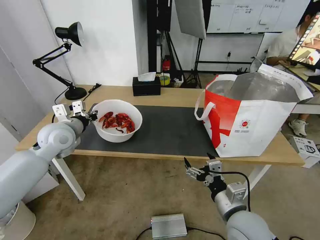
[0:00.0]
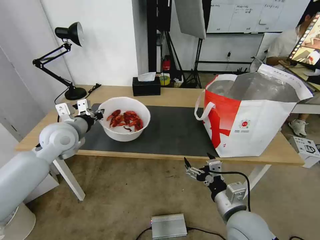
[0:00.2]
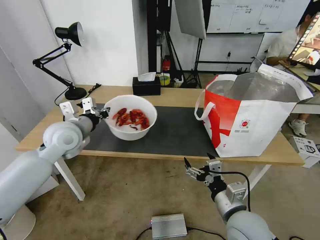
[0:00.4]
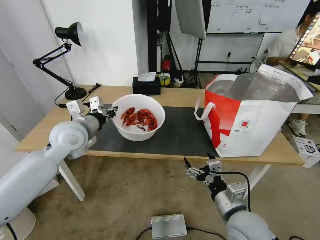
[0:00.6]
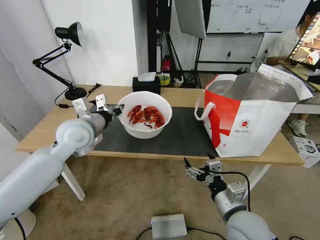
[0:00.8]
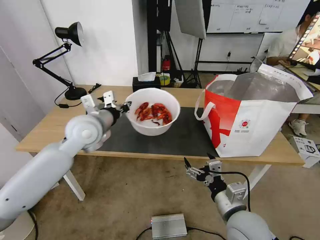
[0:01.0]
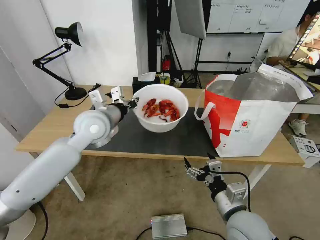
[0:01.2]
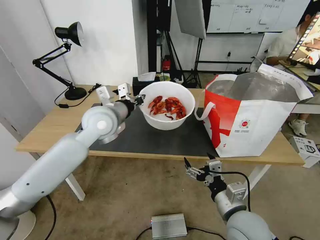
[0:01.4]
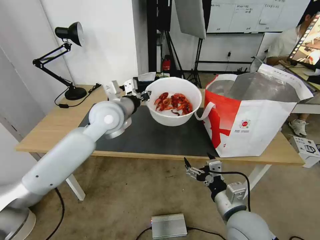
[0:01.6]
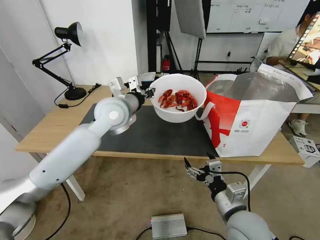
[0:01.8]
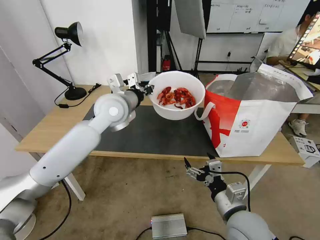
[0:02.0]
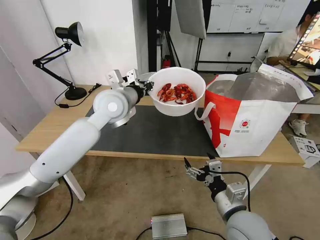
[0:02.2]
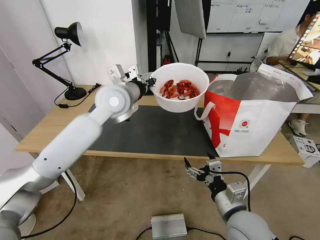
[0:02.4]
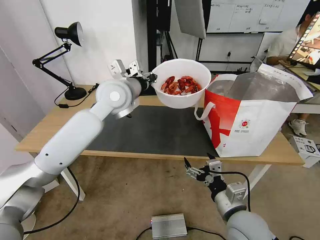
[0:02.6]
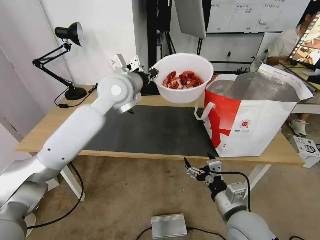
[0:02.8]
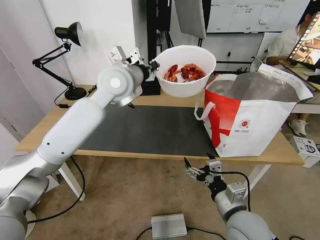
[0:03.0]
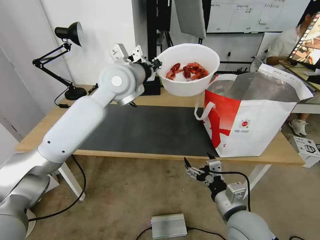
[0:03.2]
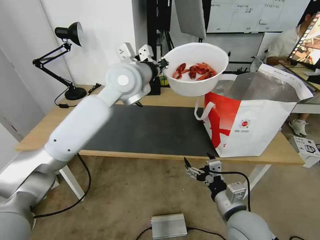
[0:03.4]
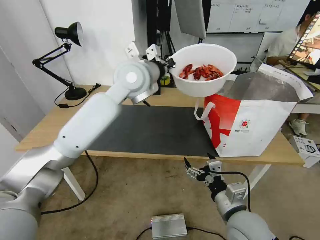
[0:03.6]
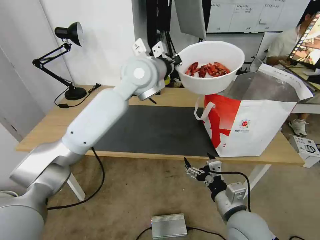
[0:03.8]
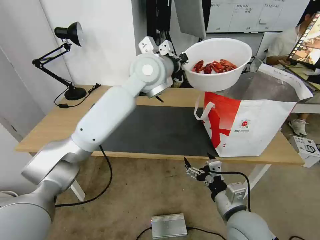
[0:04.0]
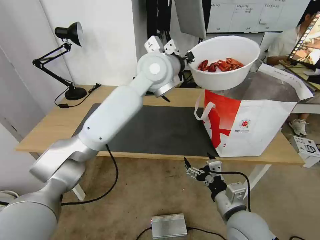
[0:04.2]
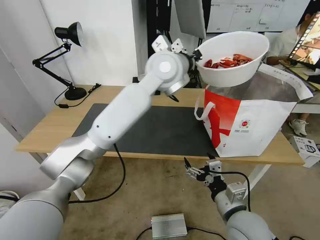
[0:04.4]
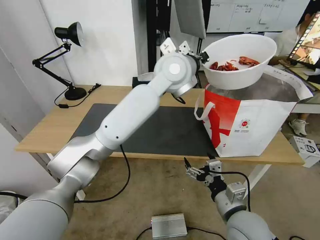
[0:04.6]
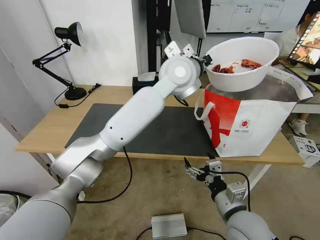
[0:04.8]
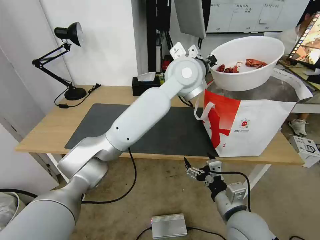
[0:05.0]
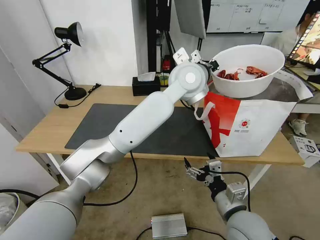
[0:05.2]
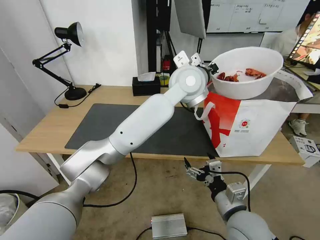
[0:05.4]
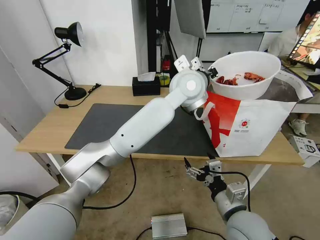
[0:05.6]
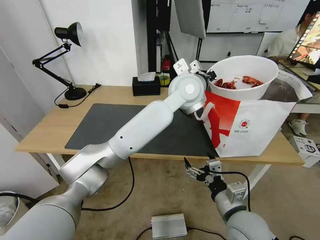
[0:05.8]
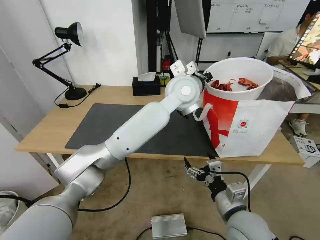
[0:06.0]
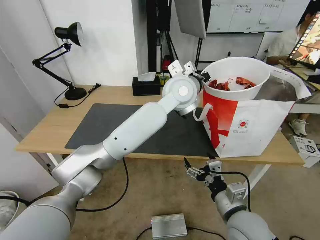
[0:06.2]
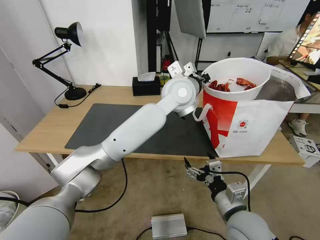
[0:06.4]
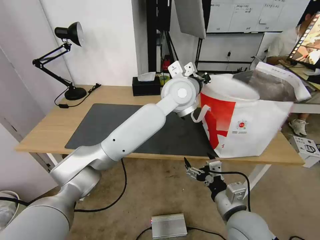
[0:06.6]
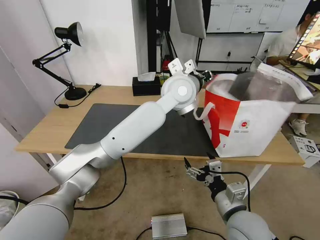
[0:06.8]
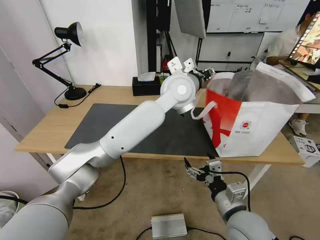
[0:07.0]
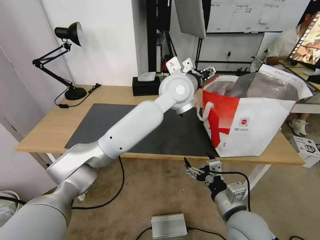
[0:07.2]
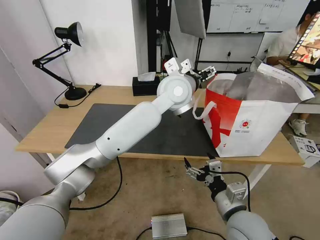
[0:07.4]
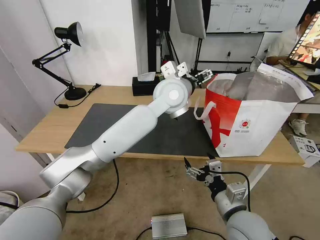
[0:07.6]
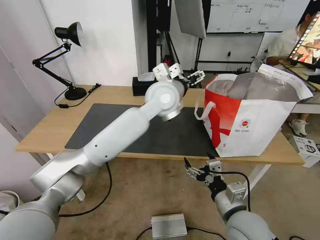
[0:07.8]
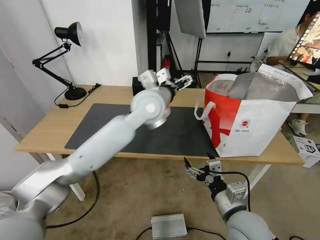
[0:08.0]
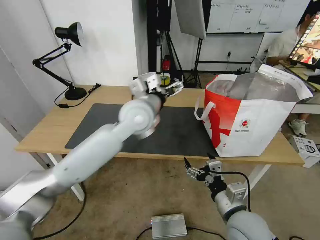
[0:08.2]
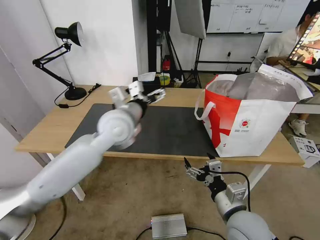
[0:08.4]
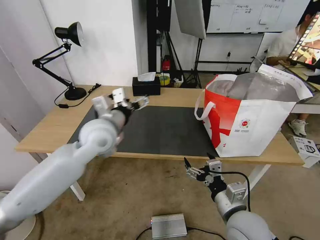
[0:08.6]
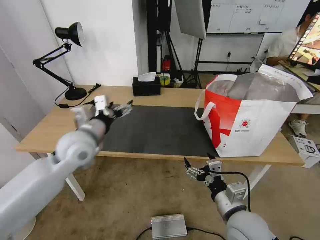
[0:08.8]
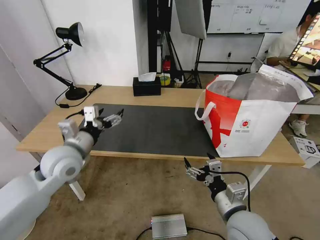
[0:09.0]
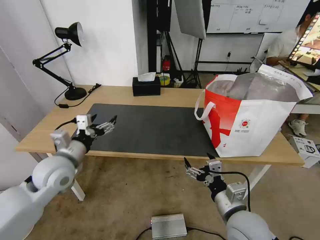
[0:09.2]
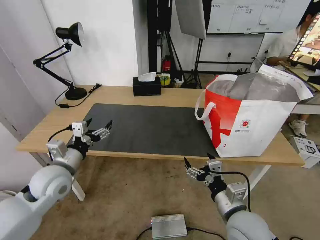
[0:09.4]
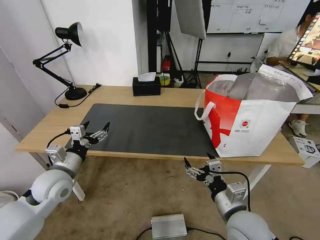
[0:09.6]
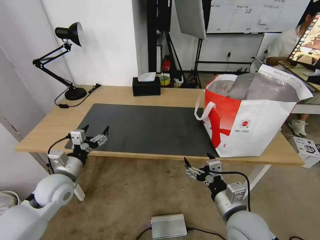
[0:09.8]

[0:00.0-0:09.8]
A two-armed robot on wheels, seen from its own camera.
Task of the whole recording: Pick up the trash from the table and place it into the takeout bag.
0:00.0 to 0:01.4: The left gripper is displaced to the right by approximately 15 cm.
0:01.4 to 0:02.8: The left gripper goes approximately 10 cm upward and to the right.
0:02.8 to 0:04.2: The left gripper heads to the right, covering roughly 10 cm.
0:04.2 to 0:05.6: The left gripper shifts roughly 10 cm to the right.
0:05.6 to 0:07.0: The left gripper opens up.
0:07.0 to 0:08.4: The left gripper heads to the left, backward and downward, covering some 20 cm, and opens up.
0:08.4 to 0:09.8: The left gripper heads to the left, downward and backward, covering roughly 30 cm.

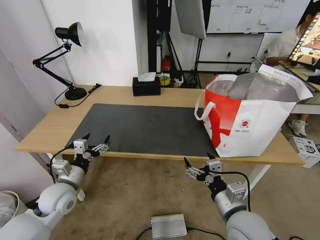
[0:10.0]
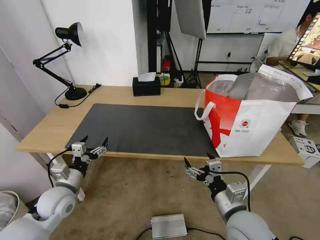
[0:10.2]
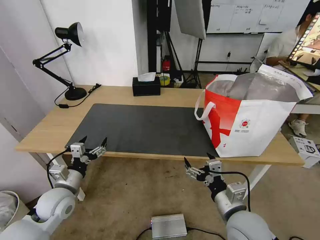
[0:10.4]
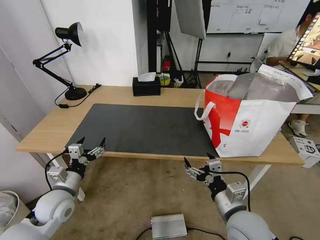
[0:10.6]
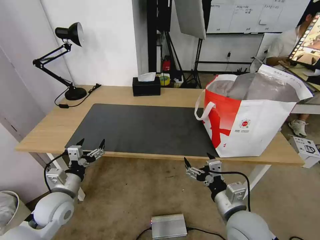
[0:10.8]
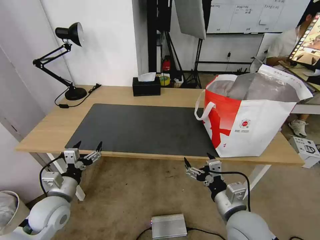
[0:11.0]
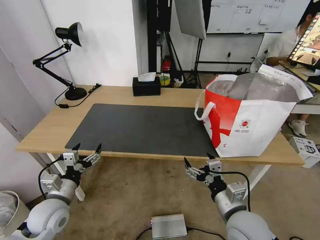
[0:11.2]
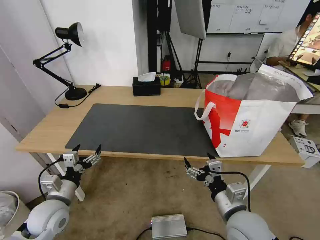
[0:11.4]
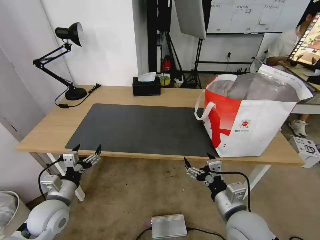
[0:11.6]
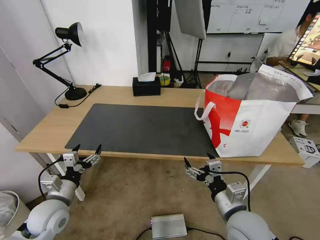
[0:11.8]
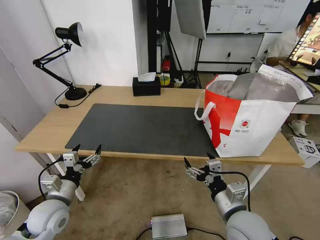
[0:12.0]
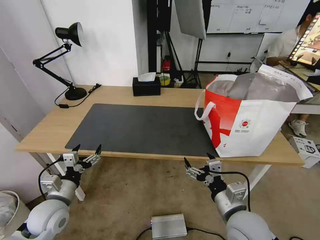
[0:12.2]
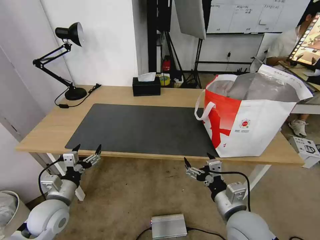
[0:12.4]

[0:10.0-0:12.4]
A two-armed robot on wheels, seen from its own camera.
Task of the whole recording: Pick up the trash from the table and place it into the takeout bag.
0:10.0 to 0:11.2: The grippers make only small movements.
0:11.2 to 0:12.4: Both grippers stay put.

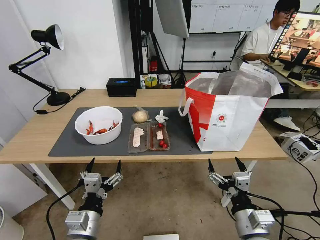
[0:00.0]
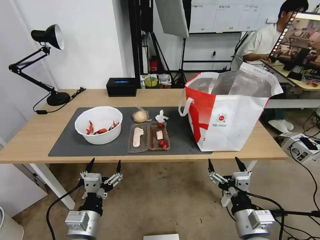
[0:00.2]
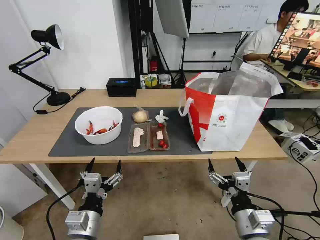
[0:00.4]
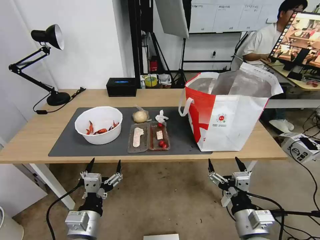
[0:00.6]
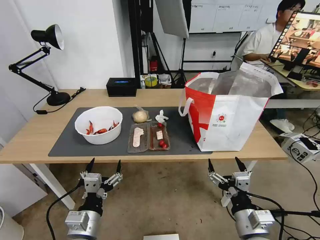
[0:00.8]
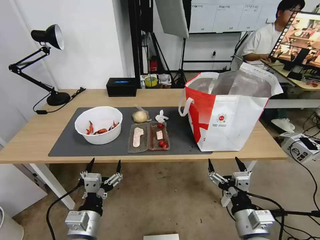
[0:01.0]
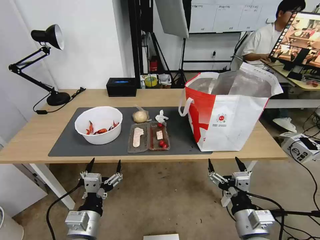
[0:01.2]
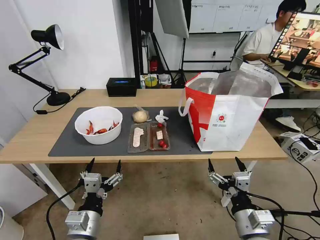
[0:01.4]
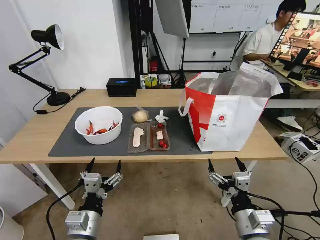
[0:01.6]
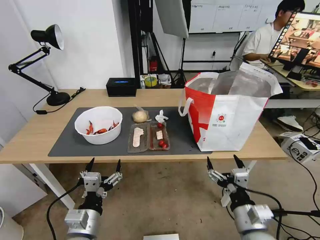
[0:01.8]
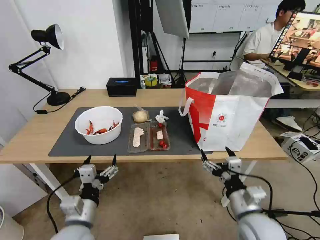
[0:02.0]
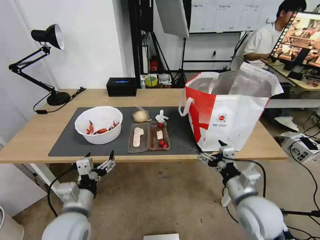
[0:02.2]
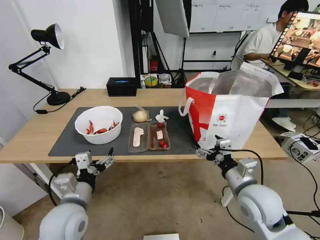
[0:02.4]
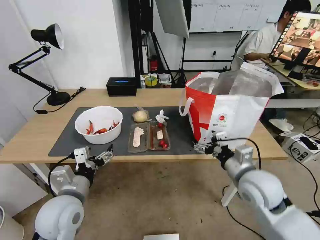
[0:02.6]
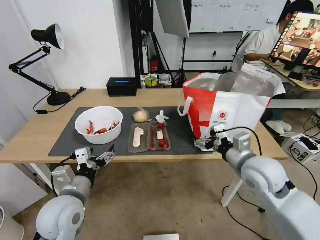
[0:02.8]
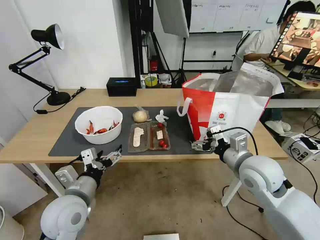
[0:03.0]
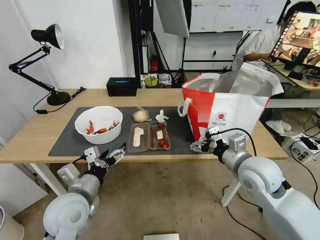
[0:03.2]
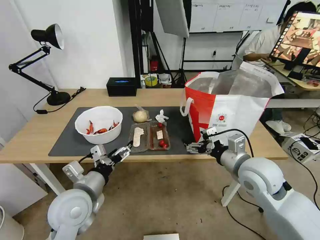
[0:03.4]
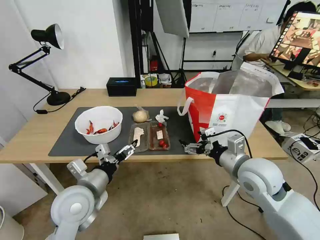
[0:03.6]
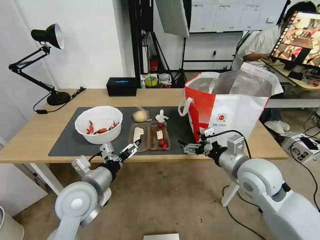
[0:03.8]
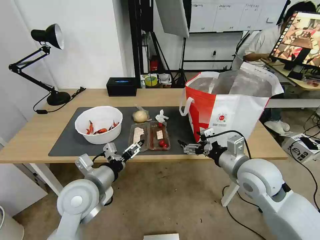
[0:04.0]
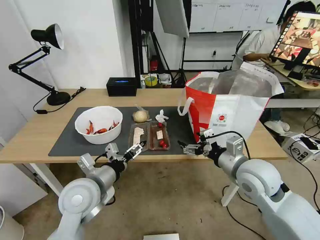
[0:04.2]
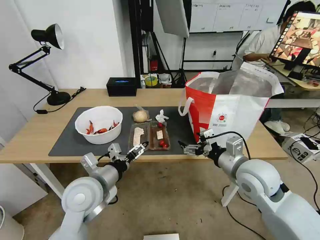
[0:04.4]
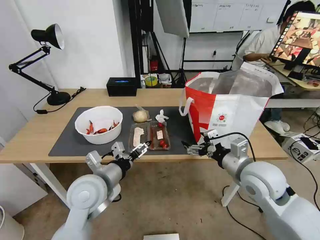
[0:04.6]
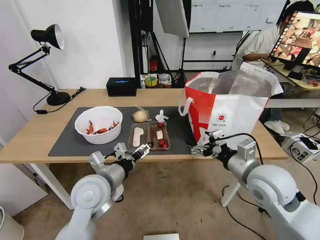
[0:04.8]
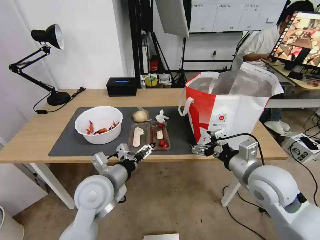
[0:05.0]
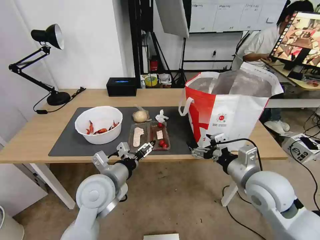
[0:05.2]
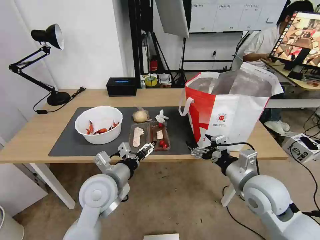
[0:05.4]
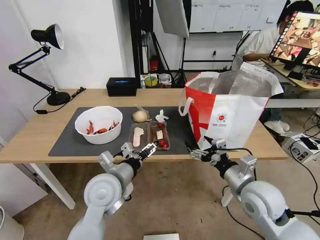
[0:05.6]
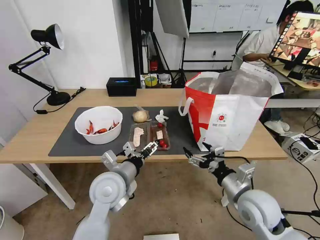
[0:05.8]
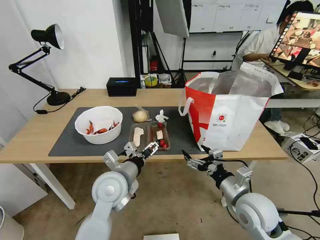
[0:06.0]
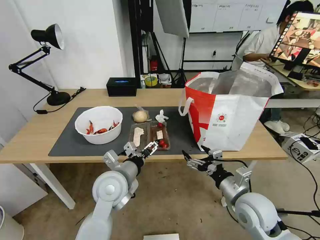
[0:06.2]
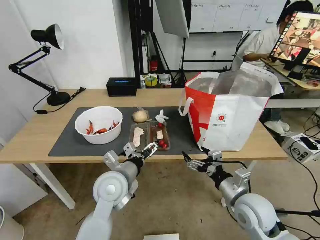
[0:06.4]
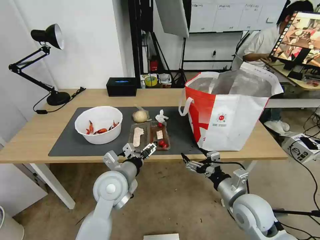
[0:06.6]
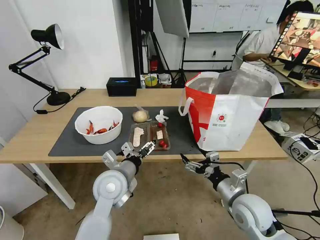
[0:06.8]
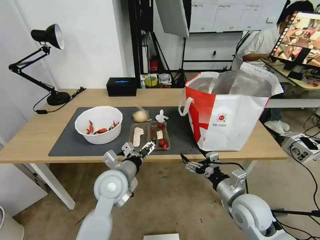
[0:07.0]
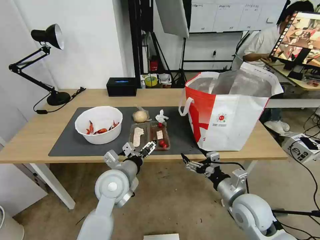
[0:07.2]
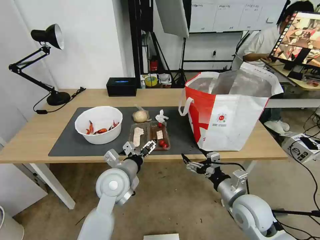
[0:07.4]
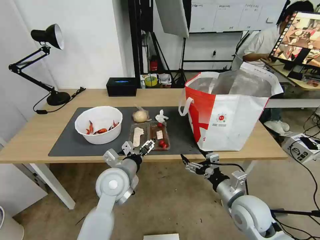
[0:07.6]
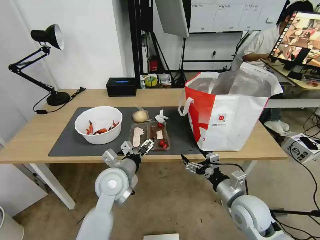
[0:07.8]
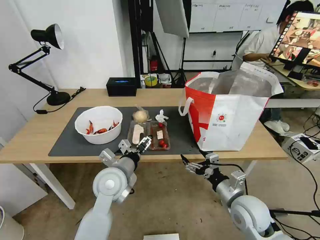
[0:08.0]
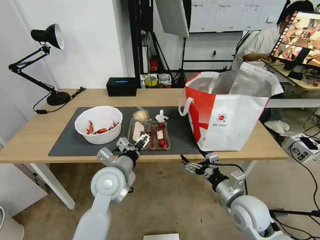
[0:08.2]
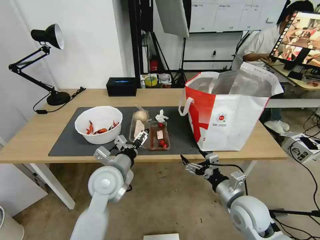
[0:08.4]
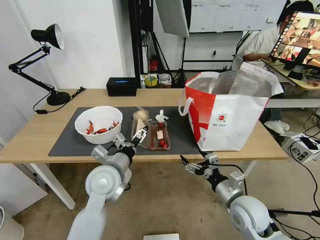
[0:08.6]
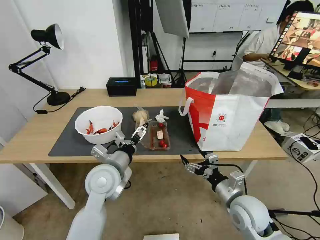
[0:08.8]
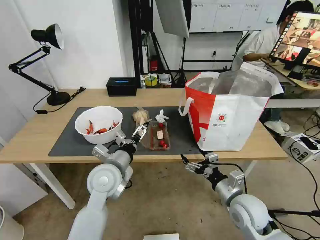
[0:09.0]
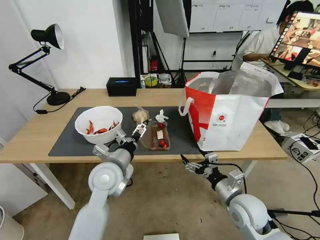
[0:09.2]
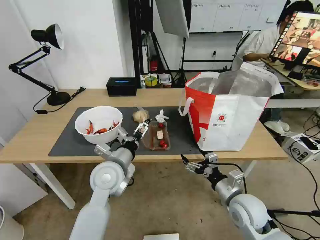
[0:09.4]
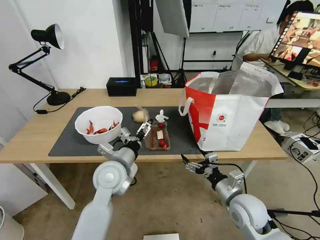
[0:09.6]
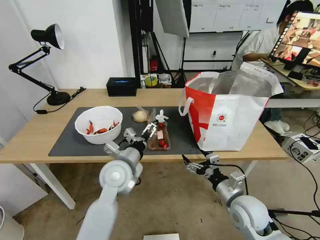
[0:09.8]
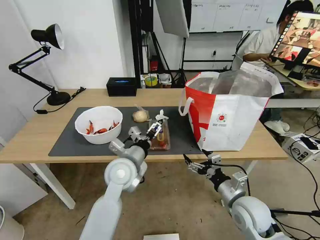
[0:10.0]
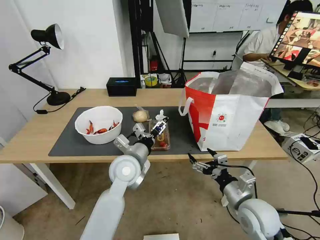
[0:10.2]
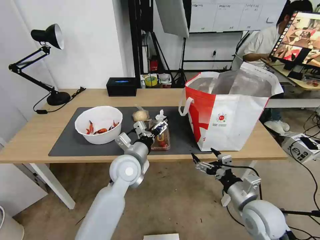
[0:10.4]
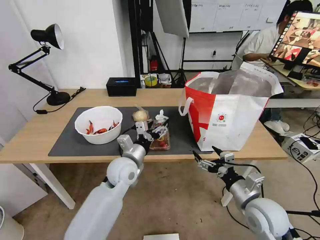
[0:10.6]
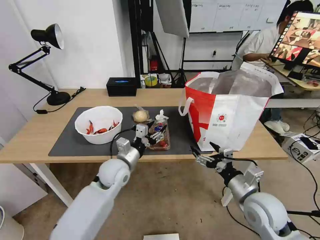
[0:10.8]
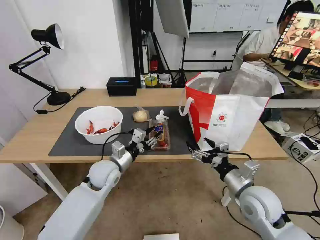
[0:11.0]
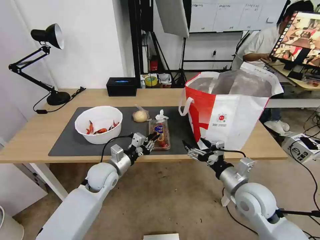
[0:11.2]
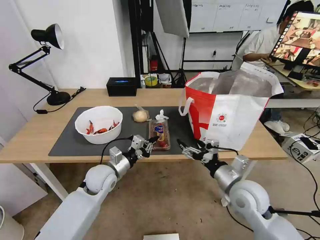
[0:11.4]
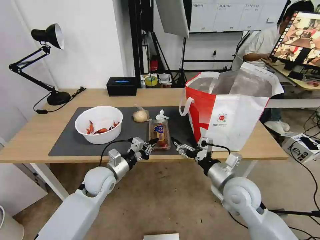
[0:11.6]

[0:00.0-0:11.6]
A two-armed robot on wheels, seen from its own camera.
Task of the whole recording: Pick up the trash from the table and place it into the takeout bag.
0:01.4 to 0:02.8: The right gripper heads forward and upward, covering roughly 20 cm, while the left gripper shifts about 10 cm forward and upward.
0:02.8 to 0:04.4: The left gripper moves about 5 cm.
0:04.4 to 0:05.8: The right gripper travels downward and backward by roughly 10 cm. Meanwhile the left gripper travels to the right by about 5 cm.
0:05.8 to 0:08.8: The grippers stay close to where they were, moving slightly.
0:08.8 to 0:10.2: The left gripper goes some 5 cm to the right.
0:10.2 to 0:11.6: The left gripper travels to the left and downward by about 15 cm, and closes up; the right gripper changes place by some 5 cm.
